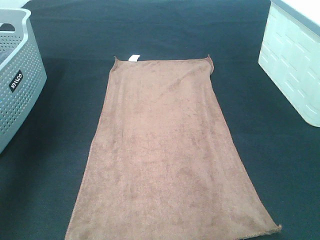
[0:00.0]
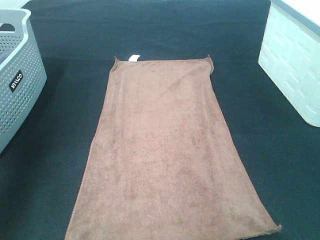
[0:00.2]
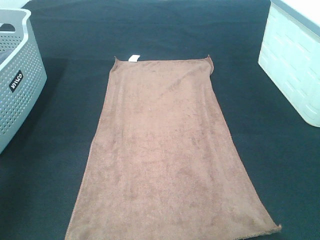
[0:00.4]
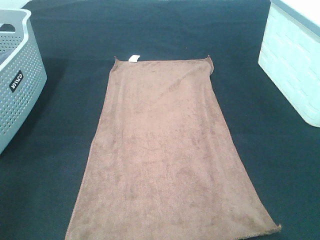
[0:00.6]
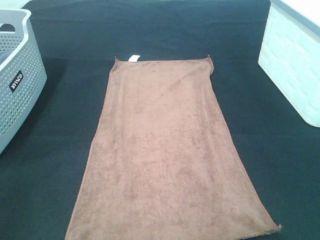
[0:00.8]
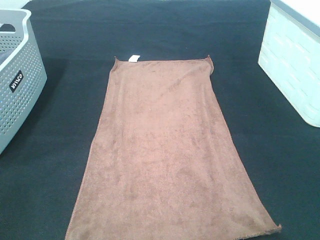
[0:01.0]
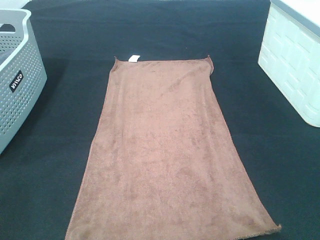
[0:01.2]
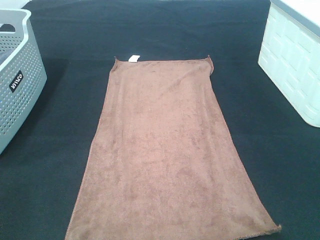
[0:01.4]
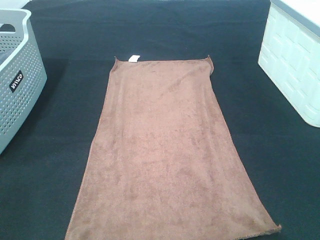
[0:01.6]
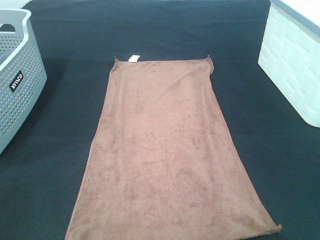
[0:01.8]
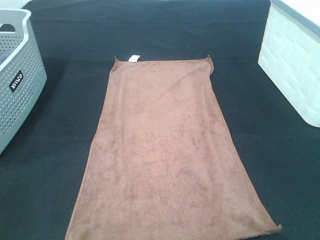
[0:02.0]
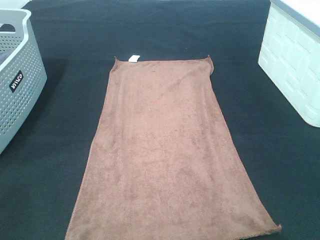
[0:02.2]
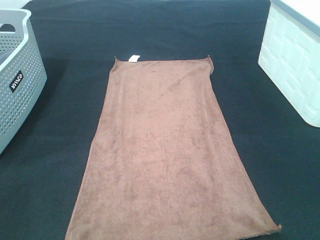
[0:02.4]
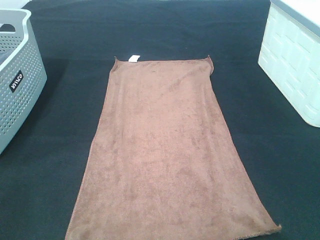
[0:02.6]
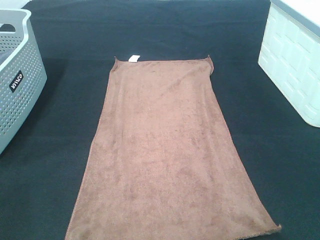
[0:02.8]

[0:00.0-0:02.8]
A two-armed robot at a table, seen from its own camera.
Task of the whole recording: Remove the towel and place it.
0:00.0 to 0:01.4: Both grippers travel together backward and downward, about 30 cm.
0:01.4 to 0:02.8: The two grippers keep their place.

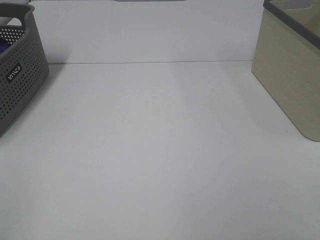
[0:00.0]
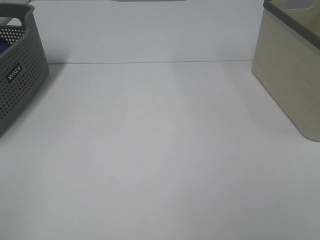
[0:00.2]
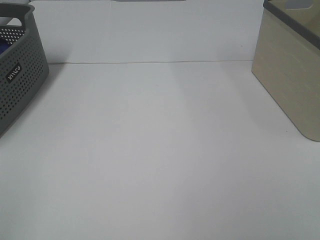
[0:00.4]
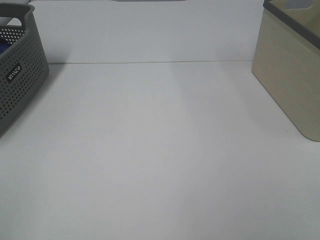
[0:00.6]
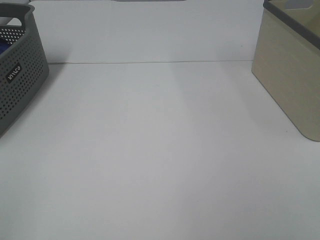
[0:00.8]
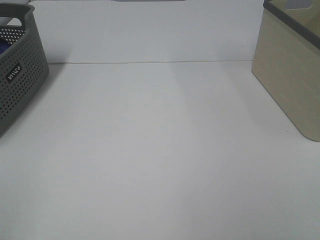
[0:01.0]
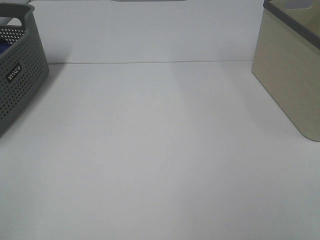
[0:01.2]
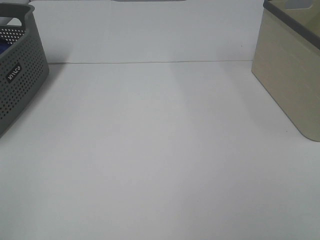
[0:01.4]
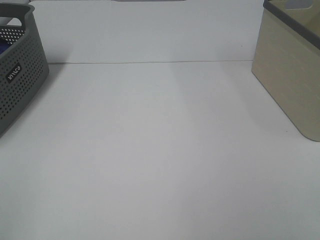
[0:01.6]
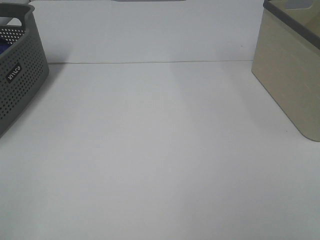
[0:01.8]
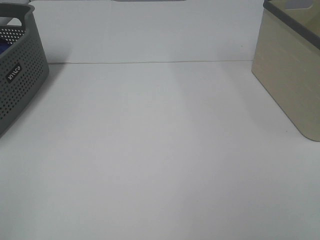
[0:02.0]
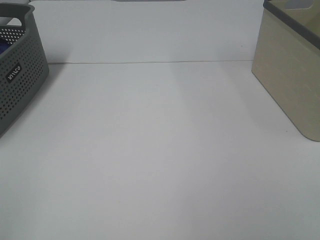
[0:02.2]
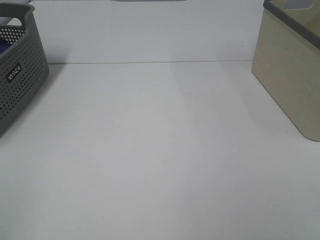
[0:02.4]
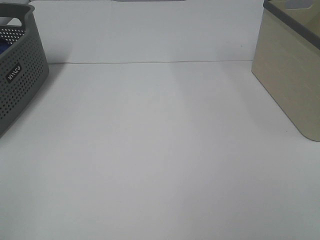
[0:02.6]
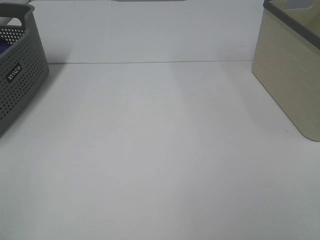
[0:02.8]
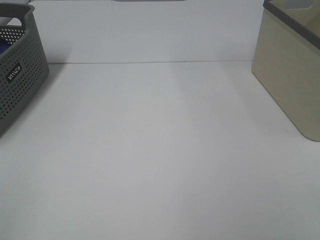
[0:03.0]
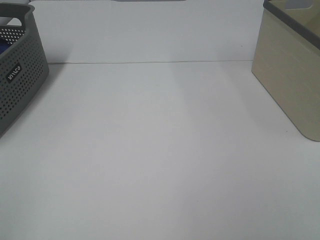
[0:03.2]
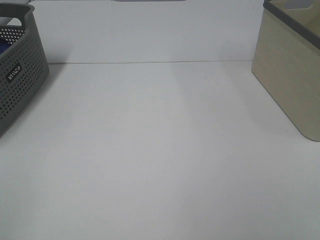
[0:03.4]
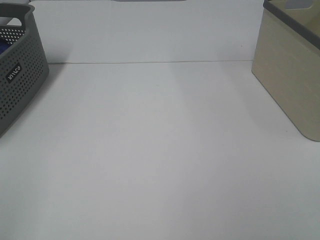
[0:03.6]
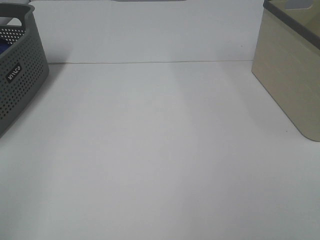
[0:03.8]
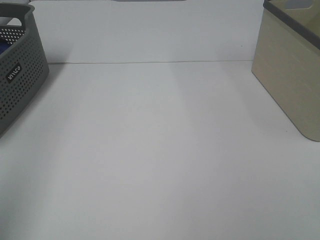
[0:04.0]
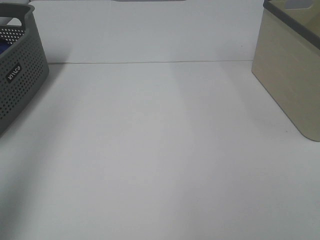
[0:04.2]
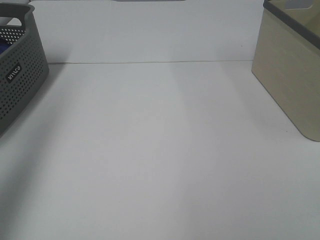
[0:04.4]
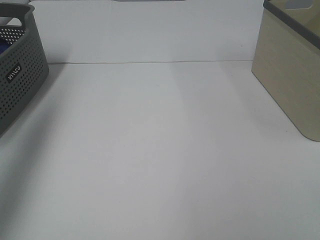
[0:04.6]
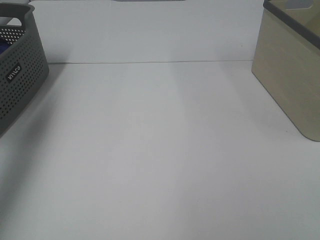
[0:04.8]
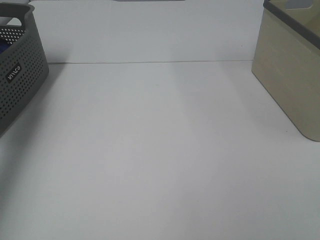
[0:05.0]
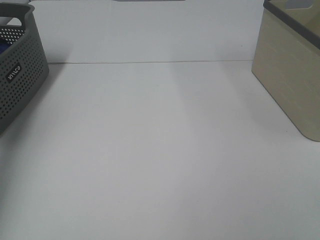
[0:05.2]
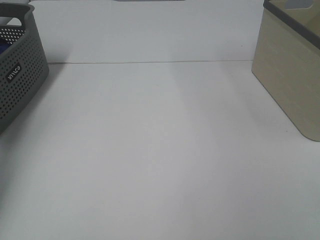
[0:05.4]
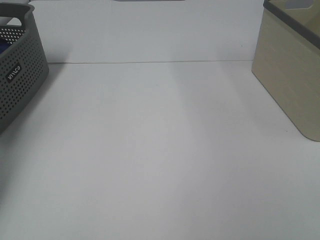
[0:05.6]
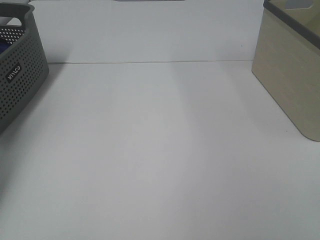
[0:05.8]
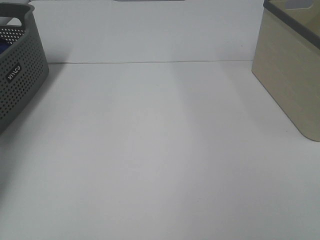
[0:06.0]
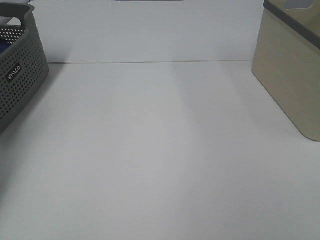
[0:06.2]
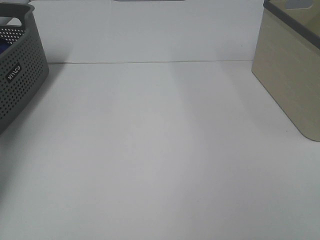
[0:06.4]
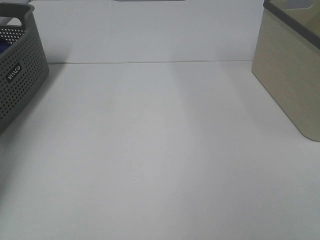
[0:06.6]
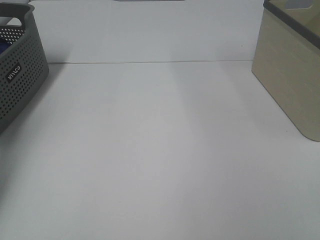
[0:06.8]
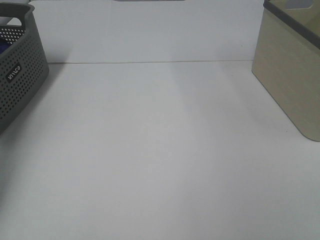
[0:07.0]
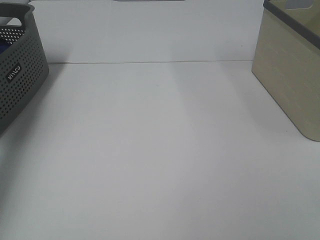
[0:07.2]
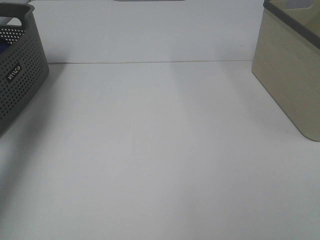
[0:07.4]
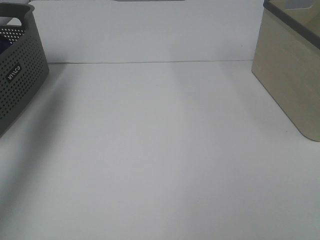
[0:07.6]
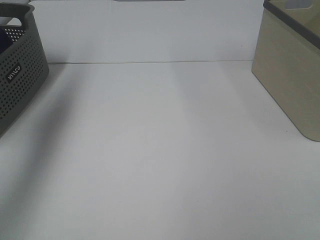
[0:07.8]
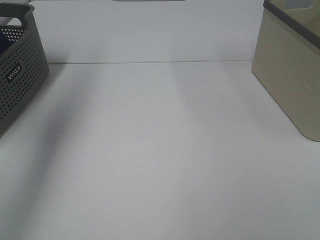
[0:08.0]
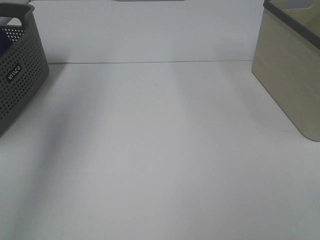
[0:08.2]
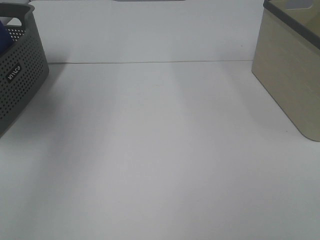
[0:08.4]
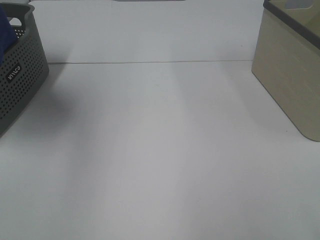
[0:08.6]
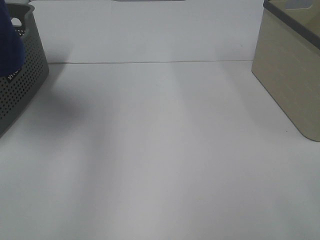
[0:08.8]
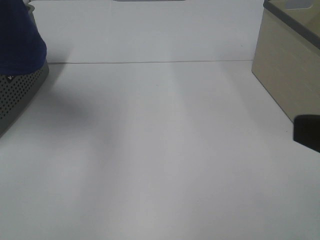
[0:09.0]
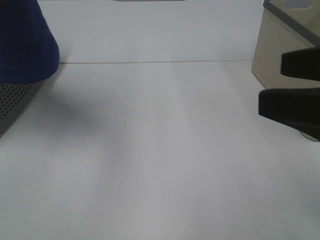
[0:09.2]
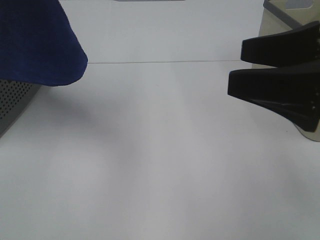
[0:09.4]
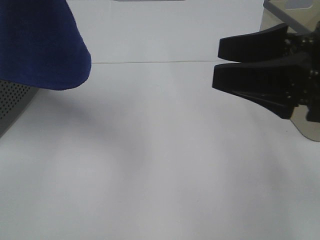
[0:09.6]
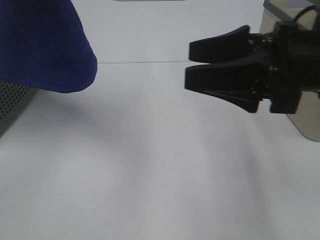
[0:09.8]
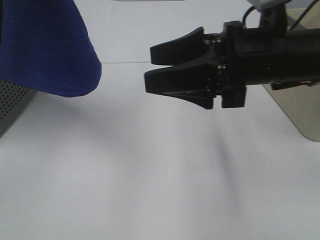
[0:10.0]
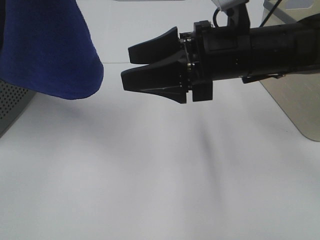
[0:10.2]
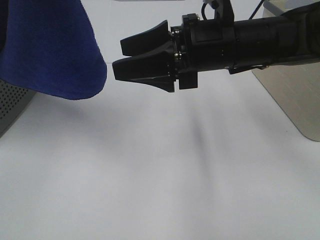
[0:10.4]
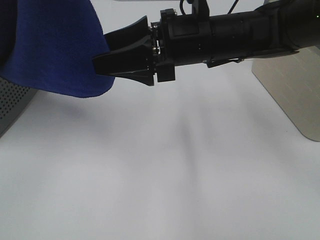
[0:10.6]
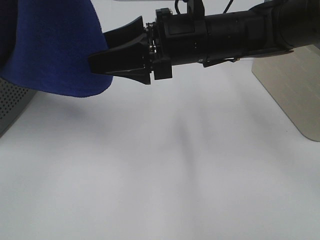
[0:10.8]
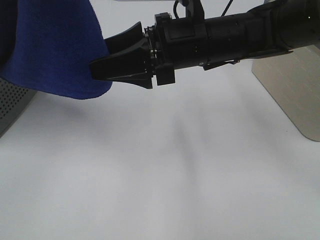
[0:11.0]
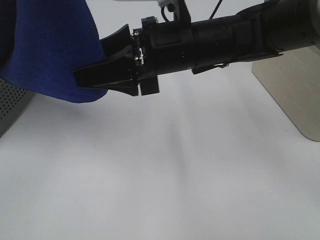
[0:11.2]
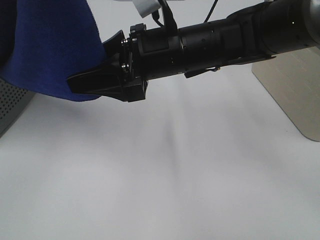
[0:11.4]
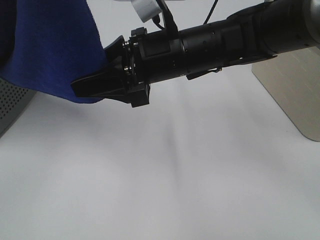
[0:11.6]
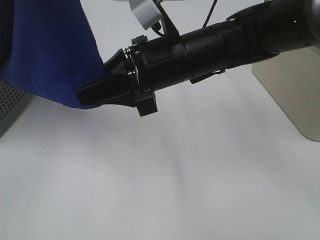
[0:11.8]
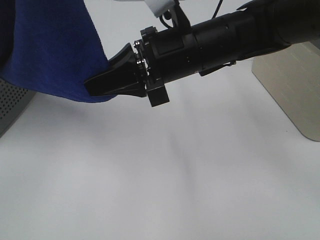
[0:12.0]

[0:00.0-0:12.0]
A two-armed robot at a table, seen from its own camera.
Task of the whole recording: Remove the towel and place it.
0:00.0 to 0:03.0: Both grippers stay about where they are.
0:03.0 to 0:04.4: The left gripper is displaced forward and upward by approximately 25 cm.
0:04.4 to 0:06.0: The left gripper goes roughly 35 cm forward and downward.
0:06.0 to 0:07.6: The left gripper travels upward and backward by some 25 cm, and closes its fingers.
0:07.6 to 0:09.0: The left gripper heads to the right, backward and upward, covering roughly 25 cm; the right gripper moves forward, roughly 10 cm.
0:09.0 to 0:10.4: The left gripper changes place by some 5 cm. The right gripper goes about 25 cm forward and to the left.
0:10.4 to 0:12.0: The right gripper closes up.

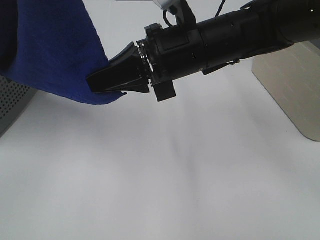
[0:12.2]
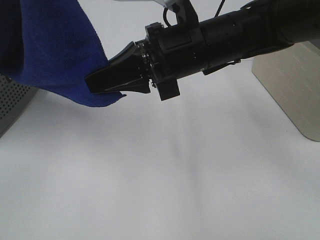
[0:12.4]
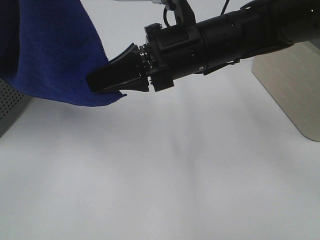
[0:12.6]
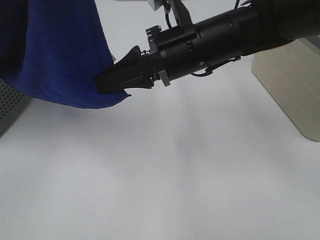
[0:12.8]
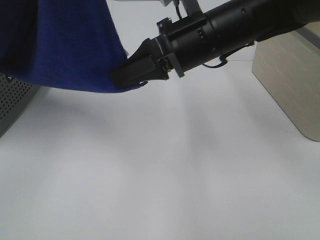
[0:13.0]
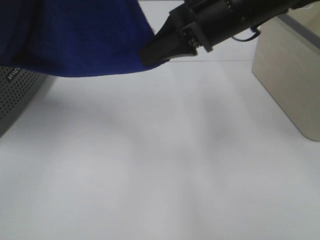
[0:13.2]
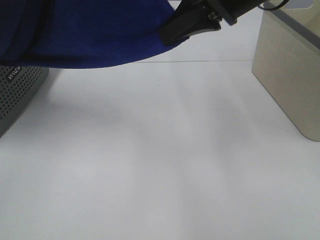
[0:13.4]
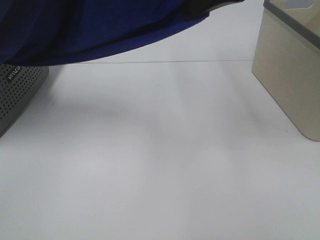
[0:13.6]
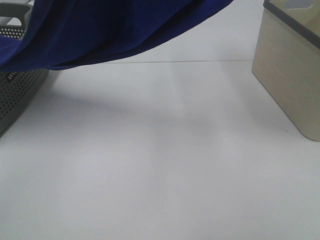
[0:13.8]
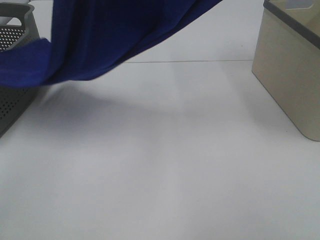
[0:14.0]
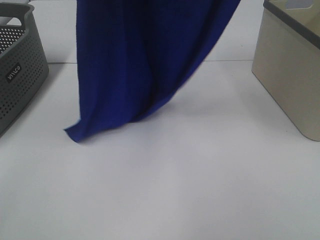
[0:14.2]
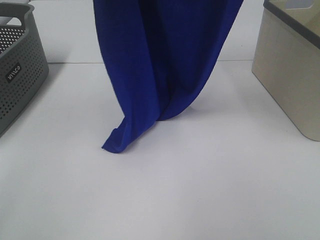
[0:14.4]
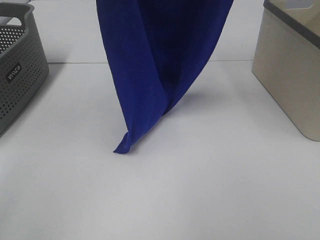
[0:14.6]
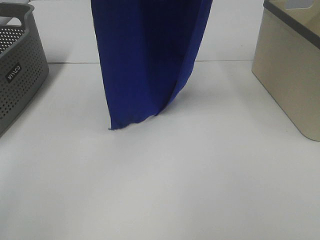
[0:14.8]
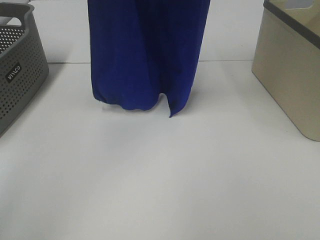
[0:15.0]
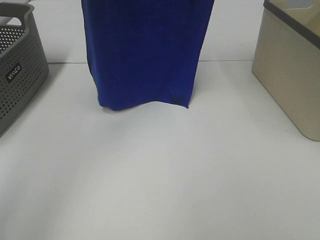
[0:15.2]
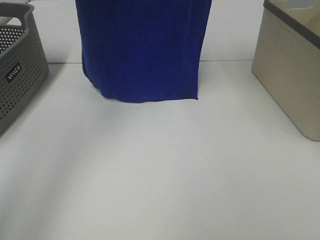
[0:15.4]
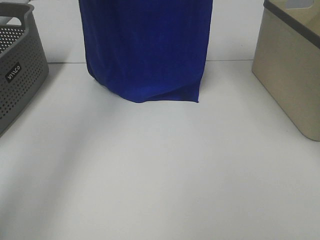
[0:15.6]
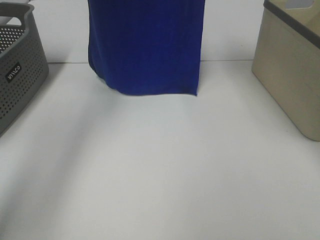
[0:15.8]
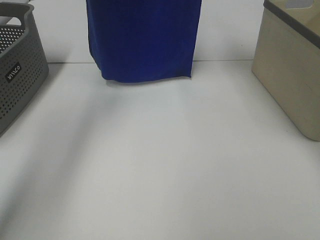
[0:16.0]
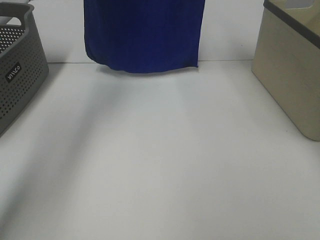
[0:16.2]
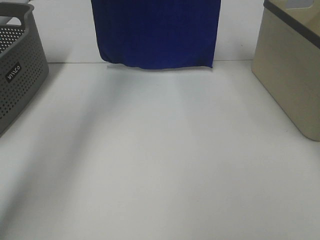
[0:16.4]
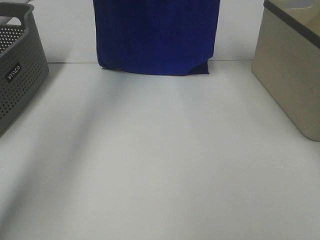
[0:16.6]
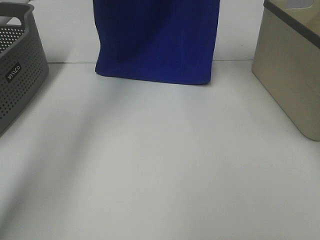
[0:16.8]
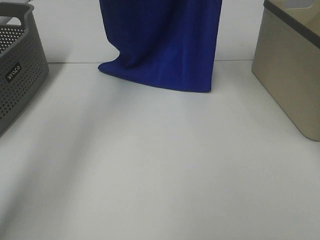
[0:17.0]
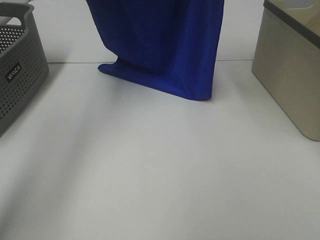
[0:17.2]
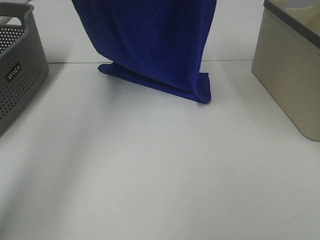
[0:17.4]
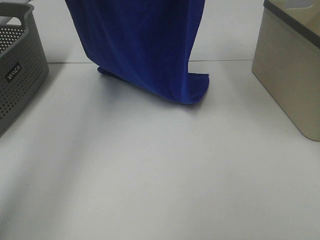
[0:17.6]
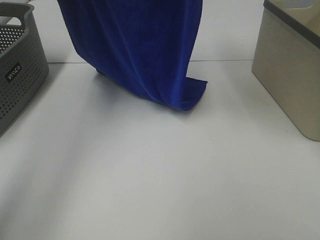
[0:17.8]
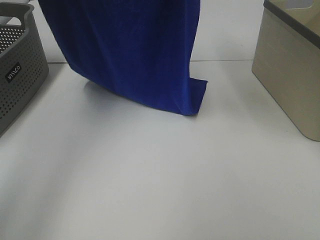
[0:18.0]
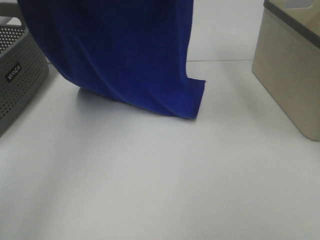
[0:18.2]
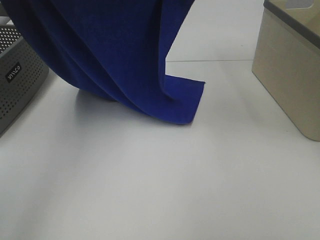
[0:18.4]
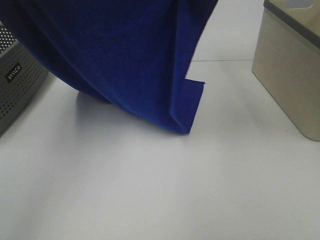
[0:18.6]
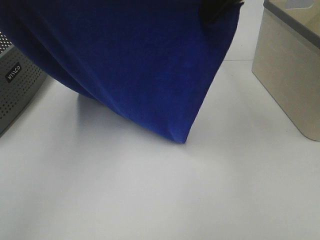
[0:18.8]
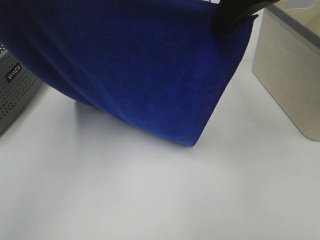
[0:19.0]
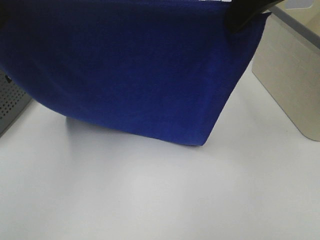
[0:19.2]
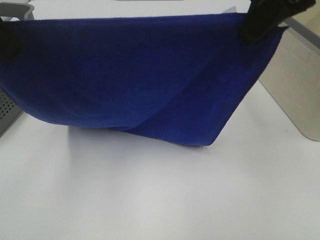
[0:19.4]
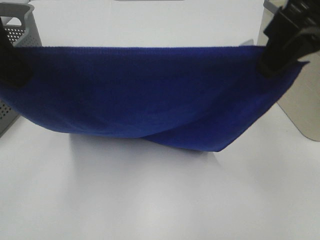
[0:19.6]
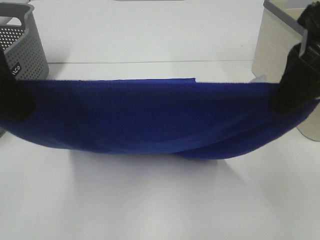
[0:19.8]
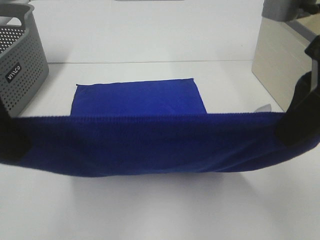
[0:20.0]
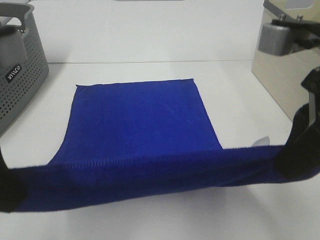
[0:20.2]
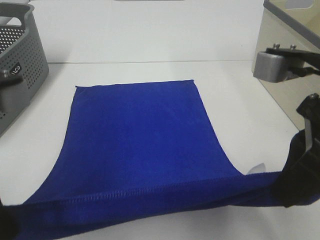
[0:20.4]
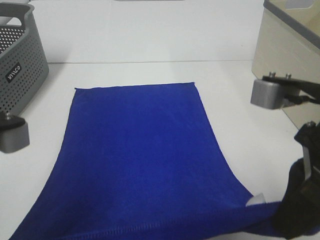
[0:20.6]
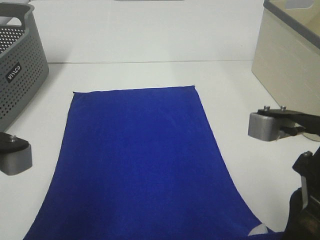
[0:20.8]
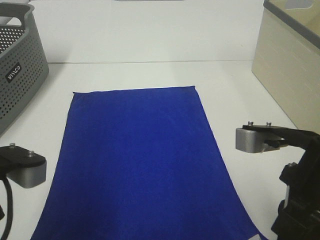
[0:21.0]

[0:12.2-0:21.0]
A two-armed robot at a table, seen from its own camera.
Task of the whole recording: Remove the towel and place it.
Step, 0:12.4 to 0:18.6: Left hand: spread the blue towel flat on the table.
Step, 0:12.4 to 0:18.6: Right hand: spread the blue towel flat on the table.
0:12.2 to 0:13.6: The left gripper shifts by some 5 cm. The right gripper shifts about 15 cm upward and to the right.
0:13.6 to 0:15.2: The left gripper moves forward and to the left, some 15 cm, while the right gripper travels upward and forward by approximately 15 cm.
0:15.2 to 0:16.6: The left gripper shifts approximately 15 cm forward and downward. Meanwhile the right gripper shifts some 10 cm forward.
0:16.6 to 0:18.0: The left gripper is displaced backward by roughly 15 cm; the right gripper moves backward, about 10 cm.
0:18.0 to 0:19.6: The grippers both shift backward and downward by roughly 20 cm.
0:19.6 to 0:21.0: The two grippers go approximately 15 cm downward and backward.
